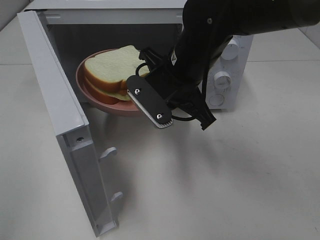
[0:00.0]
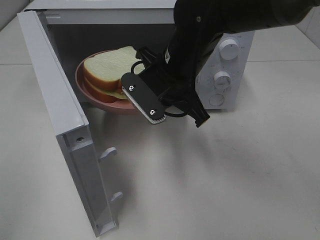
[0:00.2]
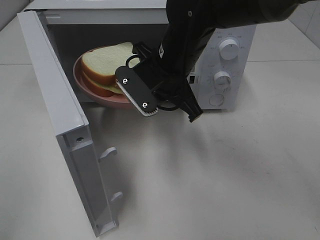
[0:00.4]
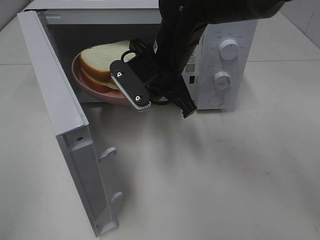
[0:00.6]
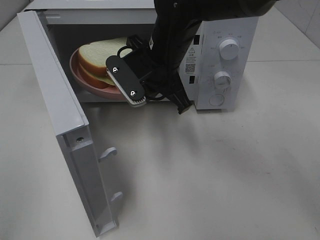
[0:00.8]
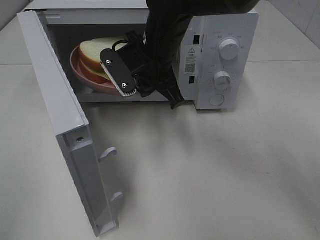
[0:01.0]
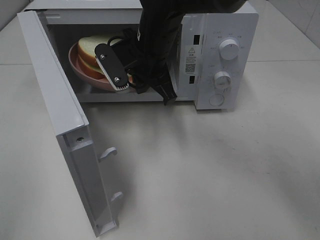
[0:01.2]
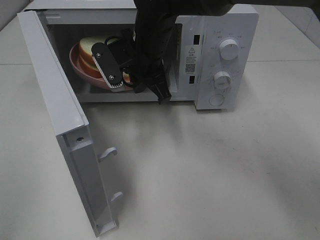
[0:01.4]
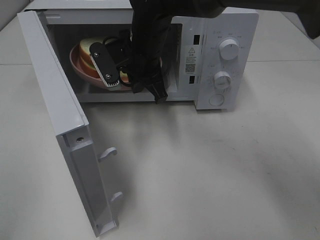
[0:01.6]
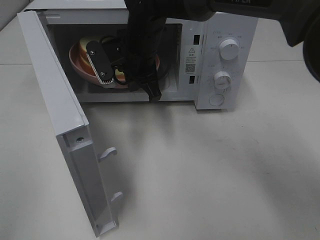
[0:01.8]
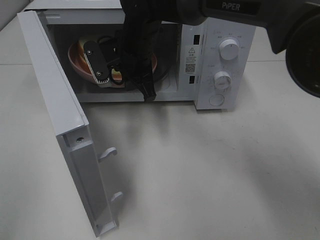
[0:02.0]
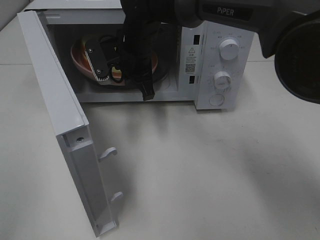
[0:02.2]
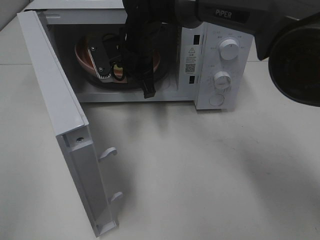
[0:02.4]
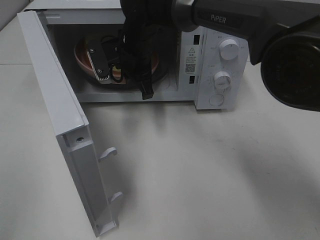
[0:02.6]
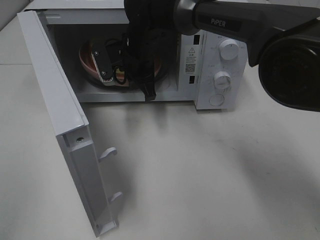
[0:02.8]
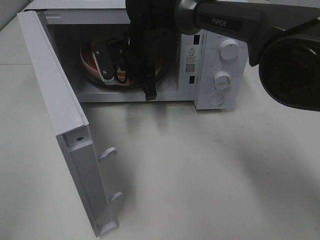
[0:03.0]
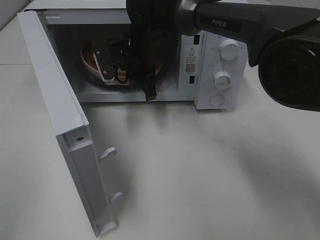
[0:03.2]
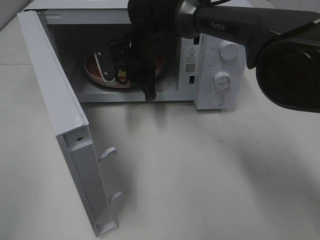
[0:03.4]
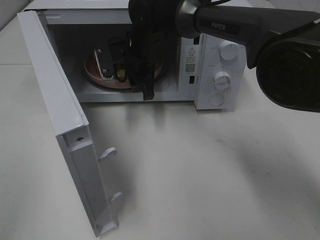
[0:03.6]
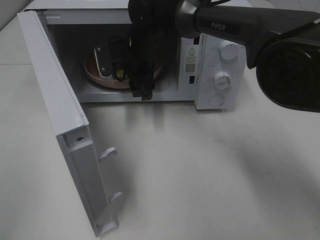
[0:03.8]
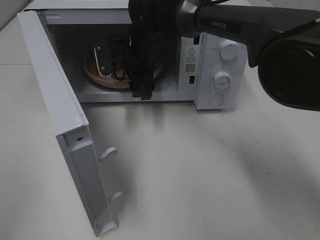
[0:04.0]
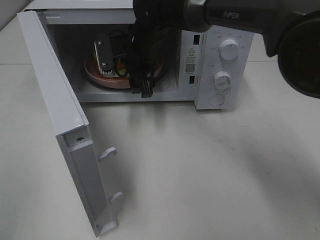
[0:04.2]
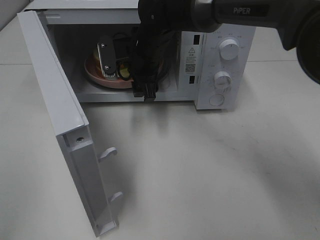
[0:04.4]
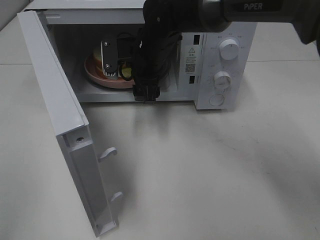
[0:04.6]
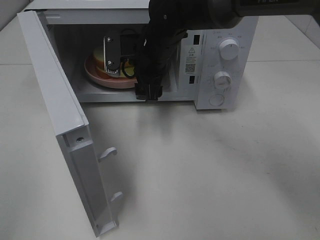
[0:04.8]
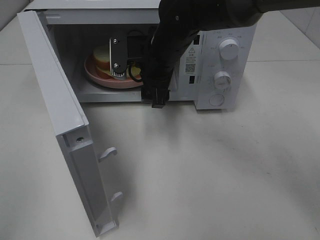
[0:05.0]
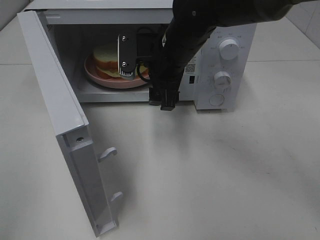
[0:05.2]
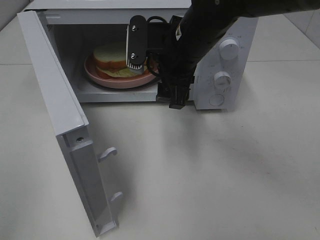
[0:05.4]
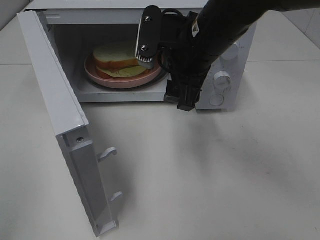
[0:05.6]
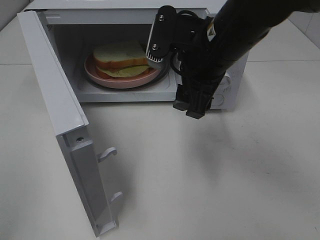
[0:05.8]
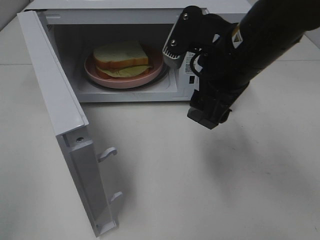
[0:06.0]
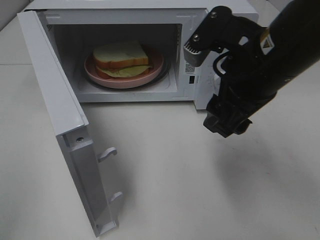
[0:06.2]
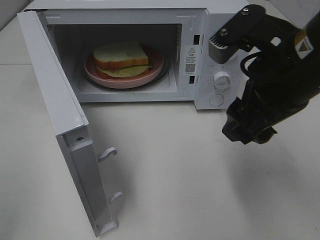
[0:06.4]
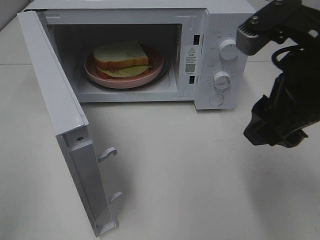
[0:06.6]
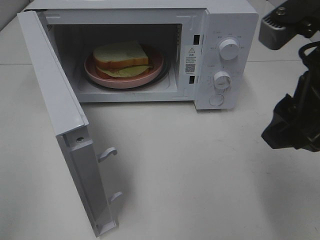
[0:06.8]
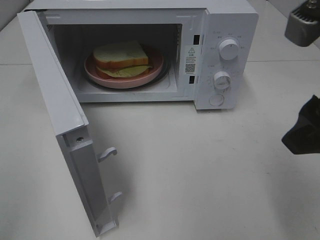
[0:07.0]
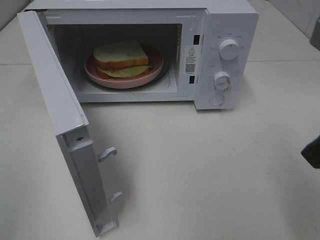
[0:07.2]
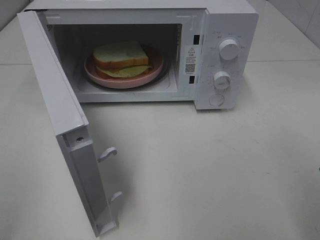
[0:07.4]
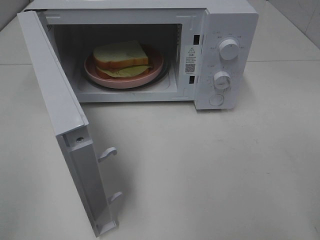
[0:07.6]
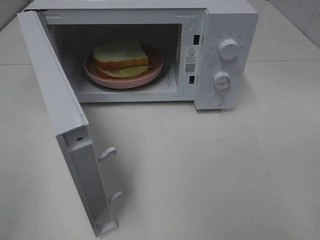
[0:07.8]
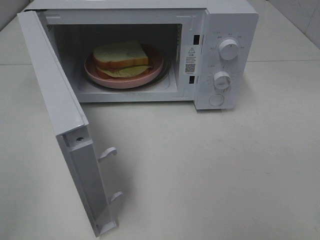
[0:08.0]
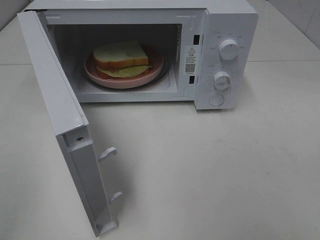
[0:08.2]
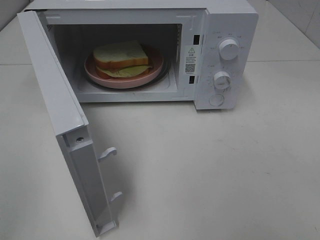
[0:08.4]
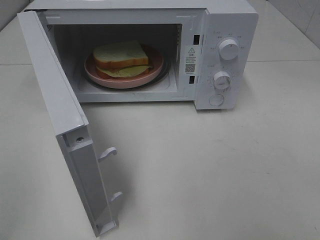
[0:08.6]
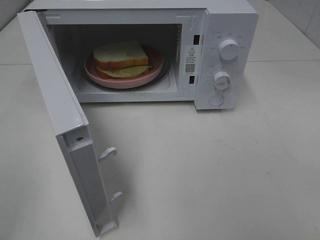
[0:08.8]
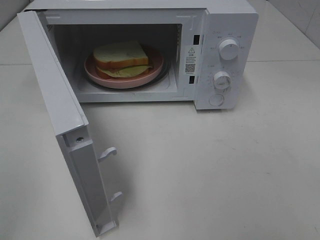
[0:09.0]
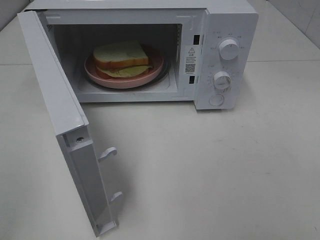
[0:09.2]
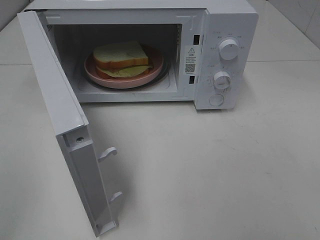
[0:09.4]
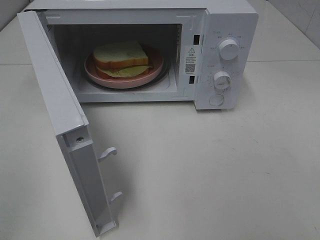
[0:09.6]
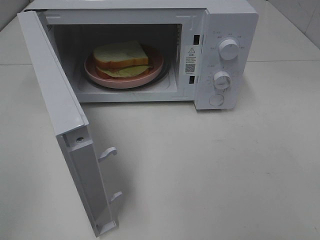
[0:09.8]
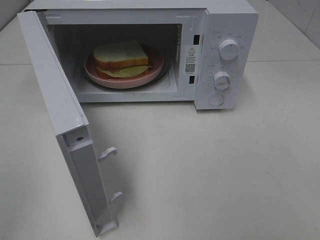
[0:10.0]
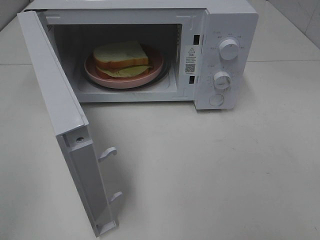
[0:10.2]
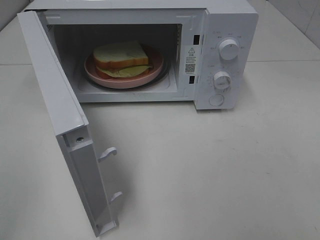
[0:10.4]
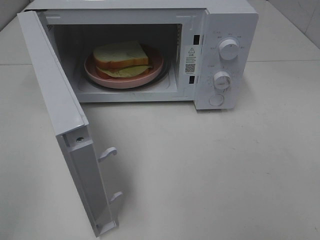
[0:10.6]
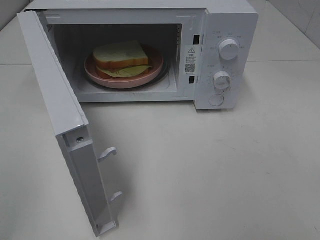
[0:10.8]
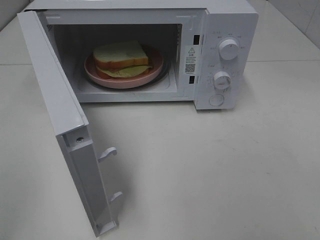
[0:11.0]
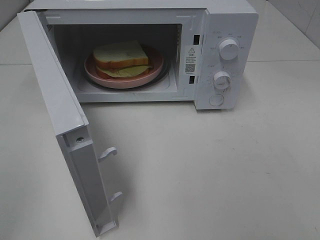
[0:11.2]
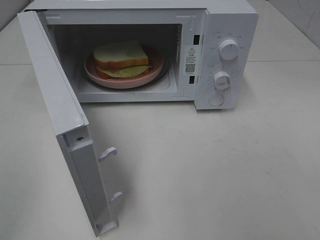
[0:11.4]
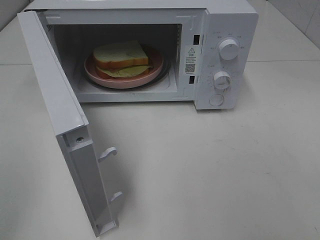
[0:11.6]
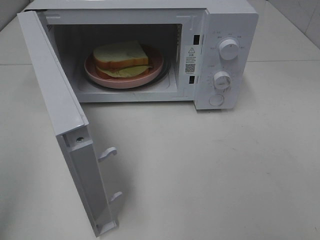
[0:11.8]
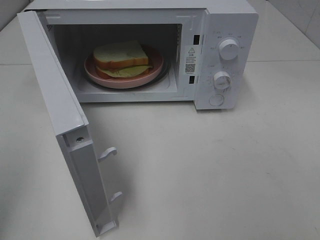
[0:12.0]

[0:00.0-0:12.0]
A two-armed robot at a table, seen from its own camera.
Task of the whole recording: Heat Sandwich.
Step, 0:00.0 to 0:04.6: Right hand: place the plate in the microwave.
0:00.0 to 0:01.6: The right gripper moves forward and to the left, some 10 cm.
0:01.6 to 0:03.0: The right gripper shifts by approximately 5 cm.
0:03.0 to 0:04.4: The right gripper opens up.
0:04.4 to 0:06.0: The right gripper heads backward, to the right and upward, covering some 20 cm.
0:06.0 to 0:07.6: The right gripper heads backward and to the right, covering some 20 cm.
0:09.0 to 0:10.4: Both grippers stay put.

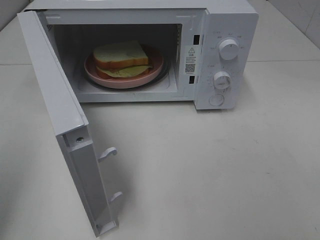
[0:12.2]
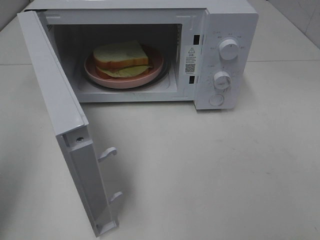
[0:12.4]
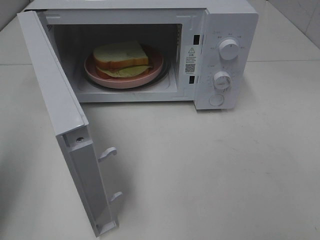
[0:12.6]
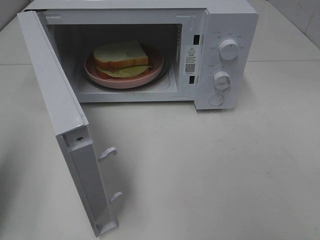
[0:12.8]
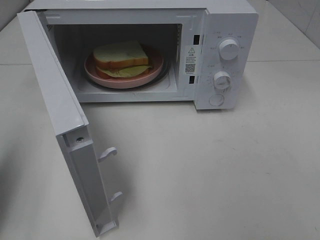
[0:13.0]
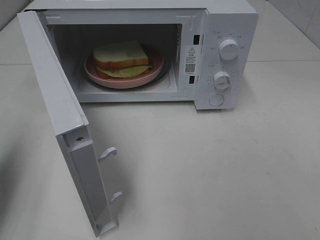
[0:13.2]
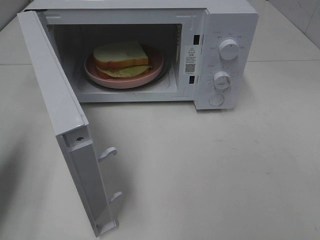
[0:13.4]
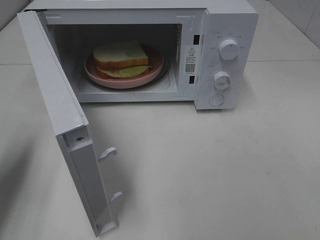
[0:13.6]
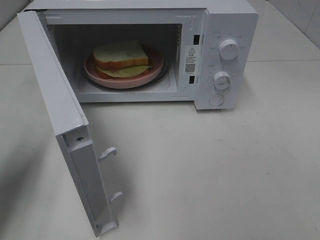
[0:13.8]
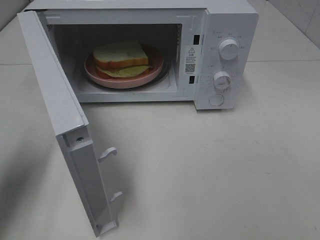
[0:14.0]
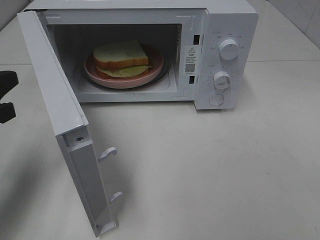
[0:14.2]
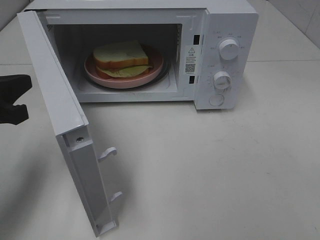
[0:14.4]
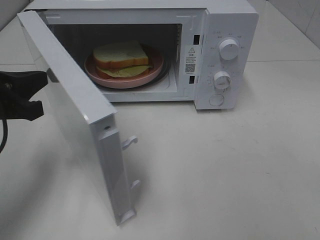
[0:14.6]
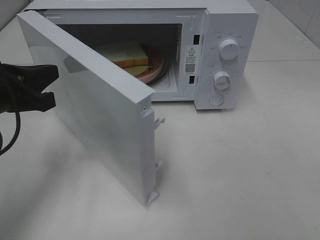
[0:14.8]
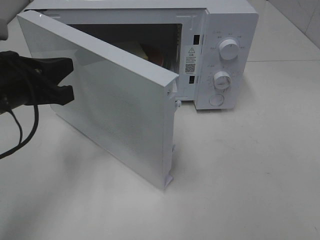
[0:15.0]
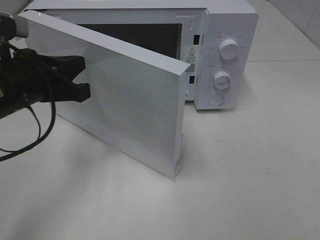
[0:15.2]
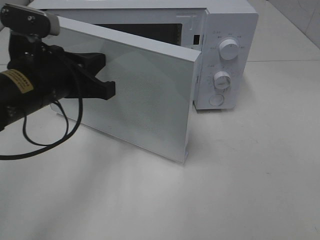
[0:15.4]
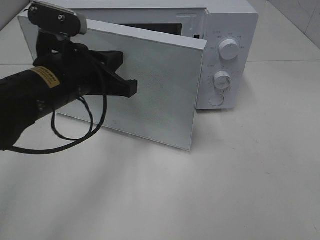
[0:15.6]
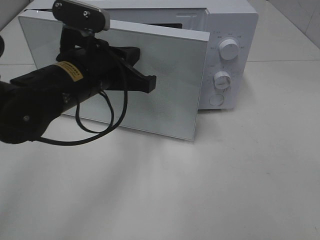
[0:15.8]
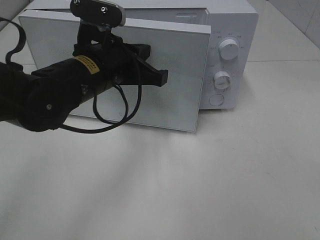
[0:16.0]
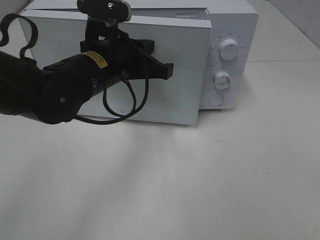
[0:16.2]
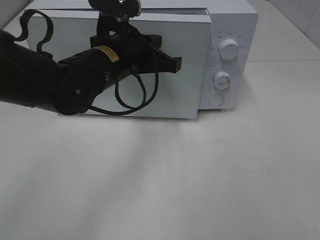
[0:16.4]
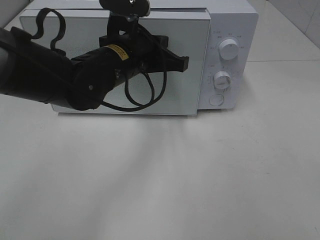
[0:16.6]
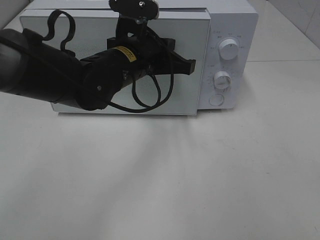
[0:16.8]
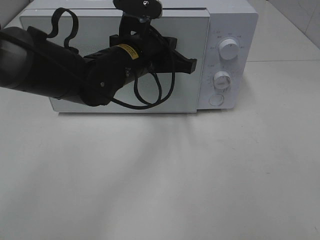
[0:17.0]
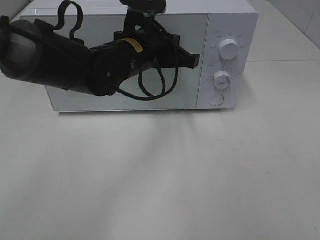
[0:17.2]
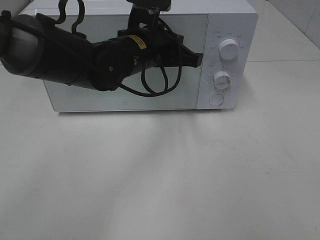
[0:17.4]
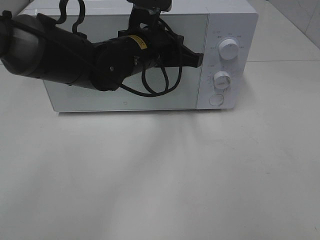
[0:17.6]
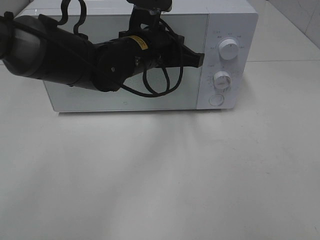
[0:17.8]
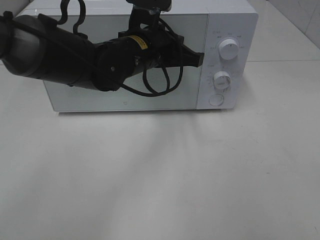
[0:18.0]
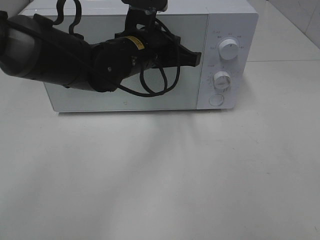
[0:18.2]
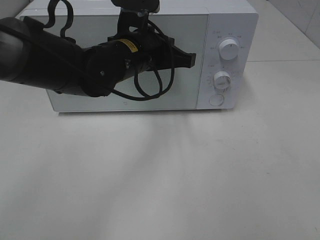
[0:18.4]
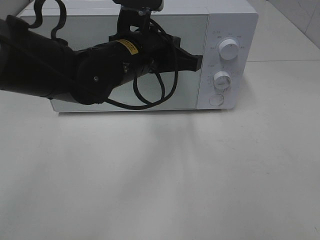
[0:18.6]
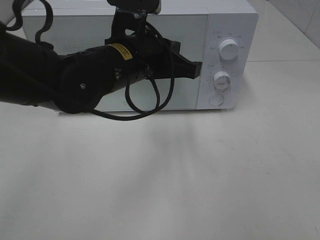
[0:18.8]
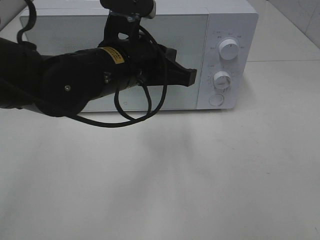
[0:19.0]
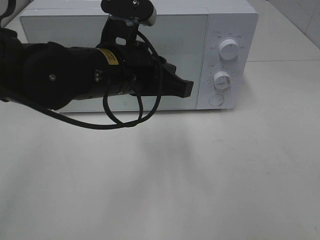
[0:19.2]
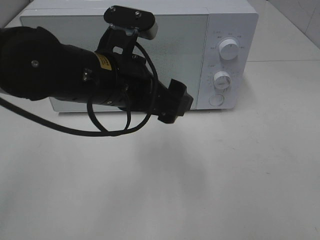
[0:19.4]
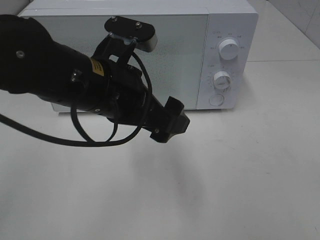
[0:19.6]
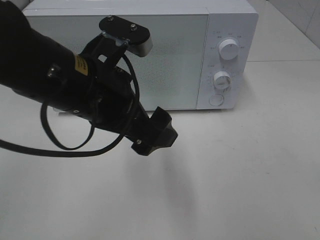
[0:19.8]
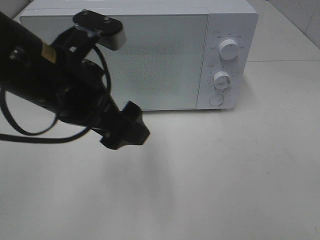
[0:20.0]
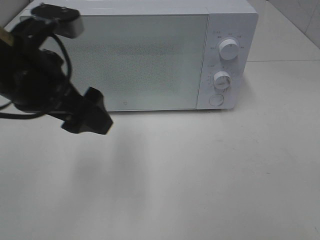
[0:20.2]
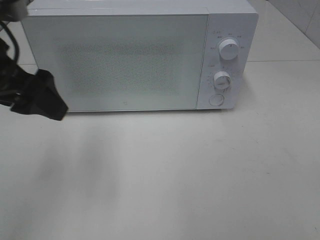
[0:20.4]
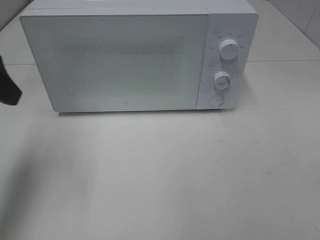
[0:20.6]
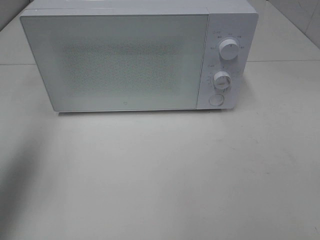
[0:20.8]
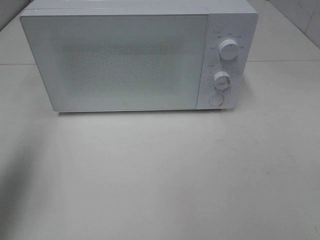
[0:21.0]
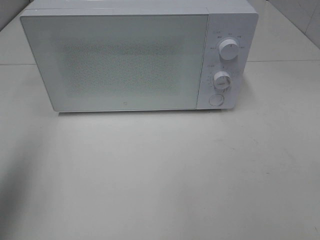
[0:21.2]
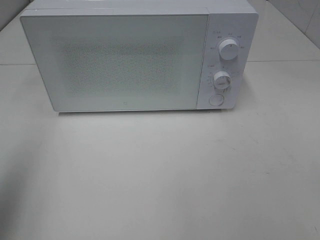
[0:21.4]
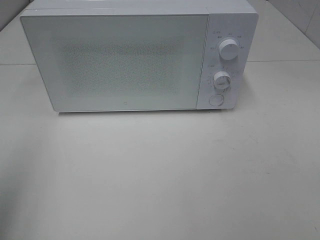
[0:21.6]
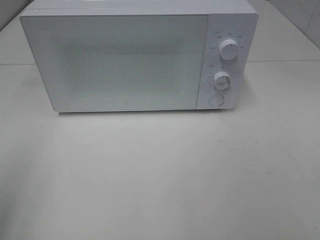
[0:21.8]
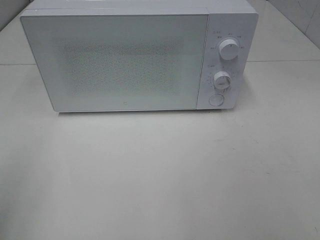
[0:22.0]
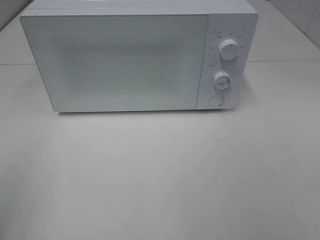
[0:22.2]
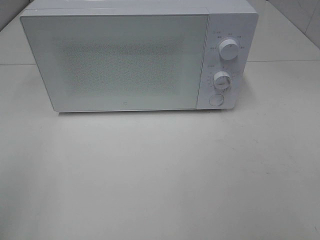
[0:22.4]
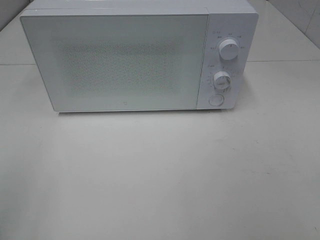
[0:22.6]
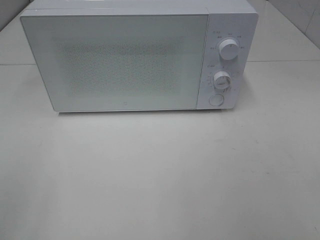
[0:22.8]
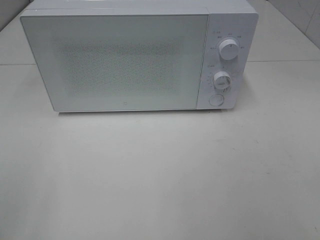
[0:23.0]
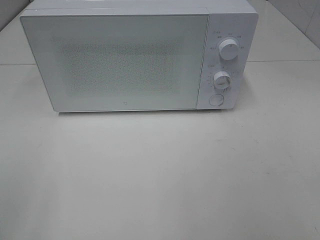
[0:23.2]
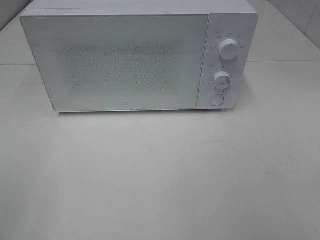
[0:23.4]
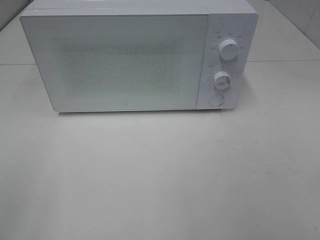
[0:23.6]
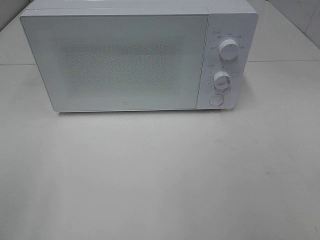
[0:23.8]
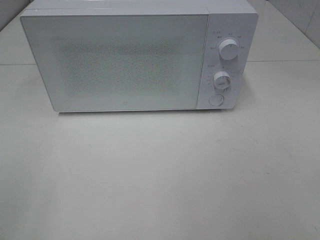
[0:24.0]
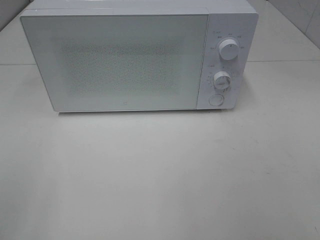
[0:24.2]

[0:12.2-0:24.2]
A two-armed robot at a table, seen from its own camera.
Task of the whole recording: Heat Sandwich.
Step, 0:12.2 to 0:18.4: Left hand: close the microwave door.
0:12.2 to 0:13.8: The left gripper is displaced forward and downward by some 15 cm.
0:13.8 to 0:15.2: The left gripper travels to the right by some 15 cm.
0:15.2 to 0:16.6: The left gripper travels to the right and forward by about 15 cm.
0:16.6 to 0:18.2: There are only small adjustments of the grippers.
0:18.2 to 0:19.8: The left gripper moves backward and to the left, some 15 cm, and opens its fingers.
0:19.8 to 0:21.2: The left gripper is displaced to the left and upward by some 25 cm.
0:21.2 to 0:22.6: The left gripper is displaced backward and downward by approximately 15 cm.
